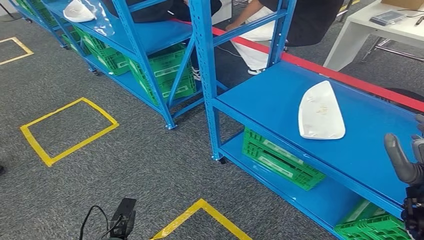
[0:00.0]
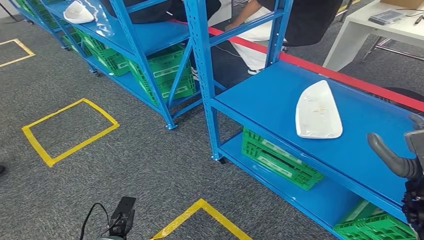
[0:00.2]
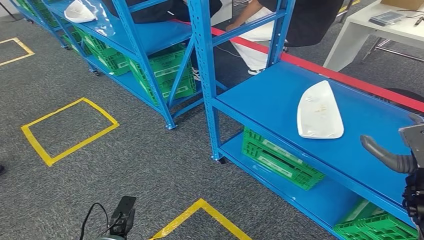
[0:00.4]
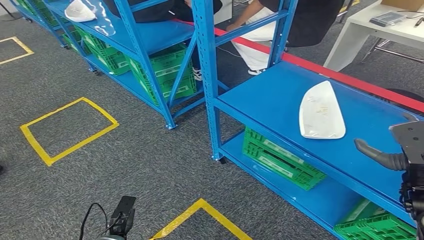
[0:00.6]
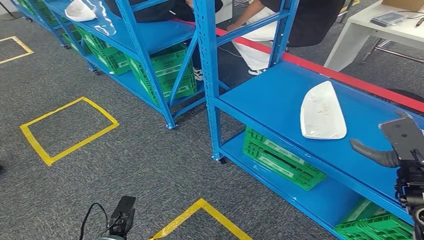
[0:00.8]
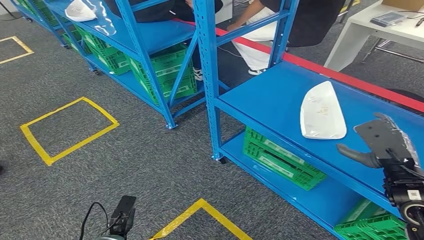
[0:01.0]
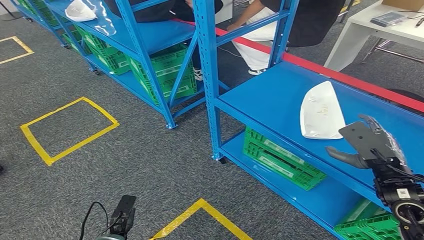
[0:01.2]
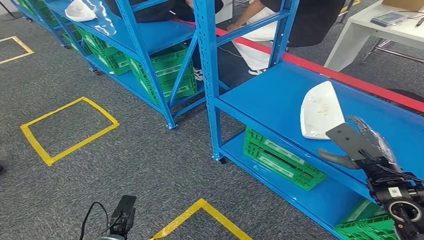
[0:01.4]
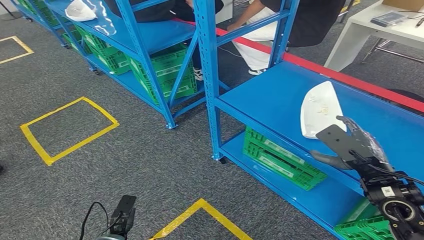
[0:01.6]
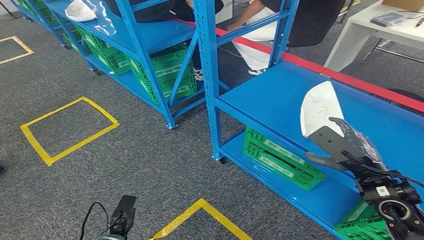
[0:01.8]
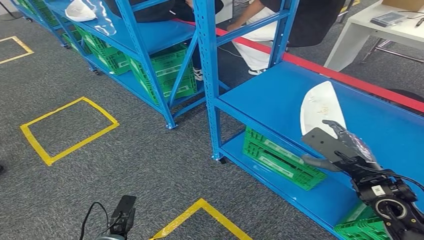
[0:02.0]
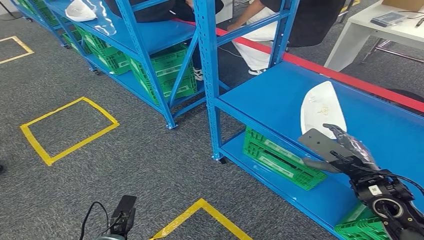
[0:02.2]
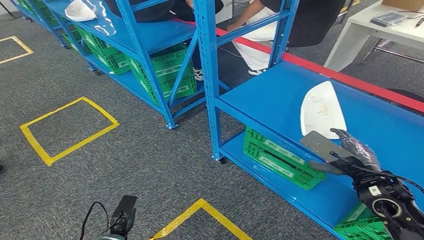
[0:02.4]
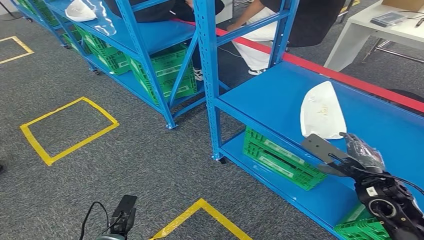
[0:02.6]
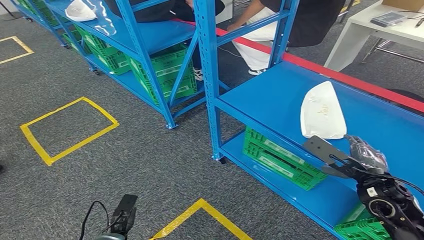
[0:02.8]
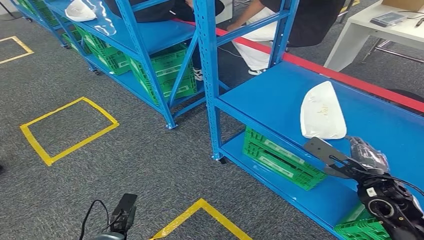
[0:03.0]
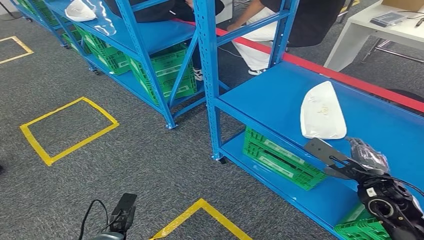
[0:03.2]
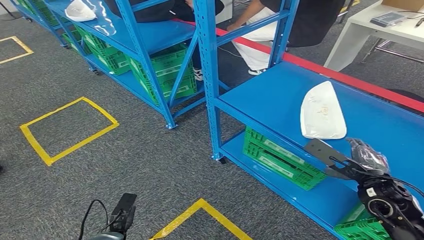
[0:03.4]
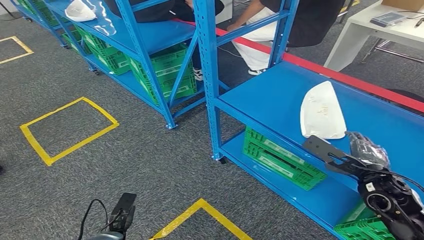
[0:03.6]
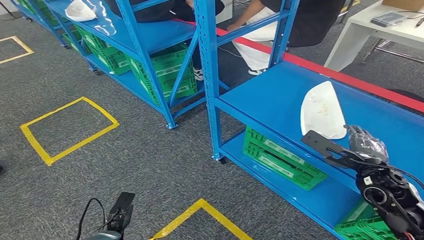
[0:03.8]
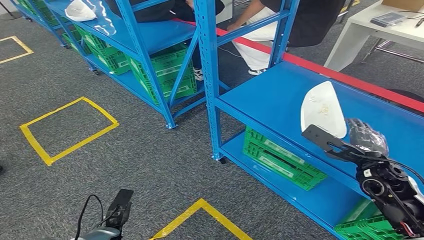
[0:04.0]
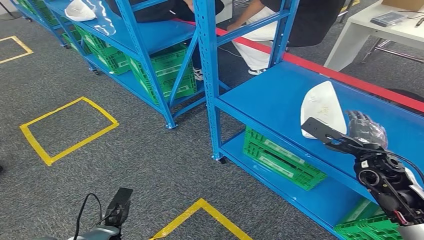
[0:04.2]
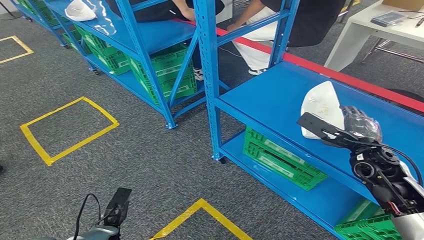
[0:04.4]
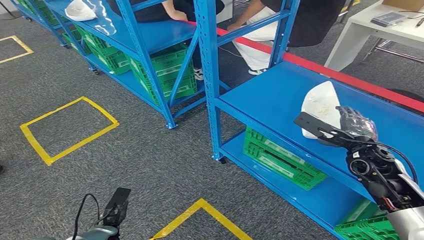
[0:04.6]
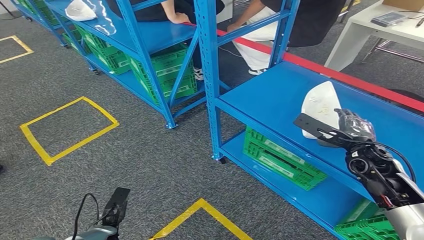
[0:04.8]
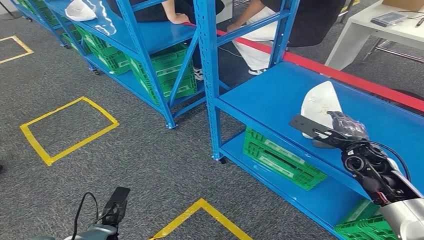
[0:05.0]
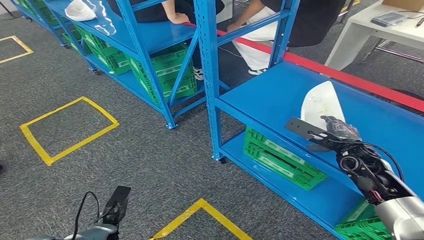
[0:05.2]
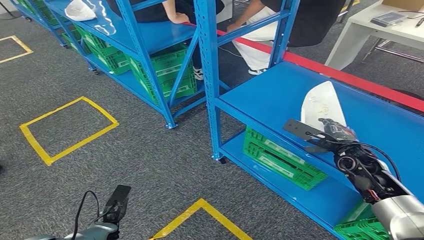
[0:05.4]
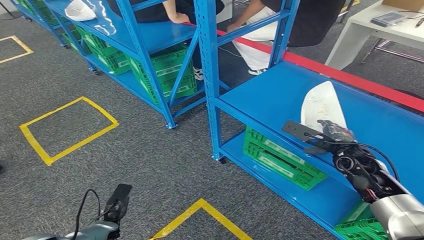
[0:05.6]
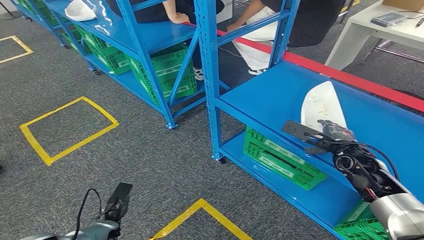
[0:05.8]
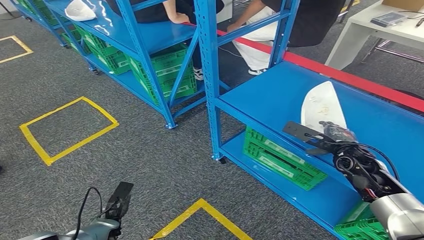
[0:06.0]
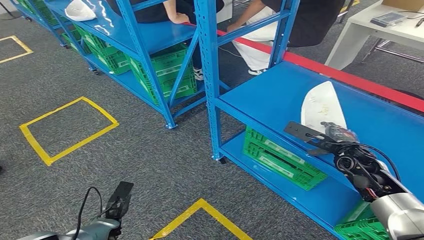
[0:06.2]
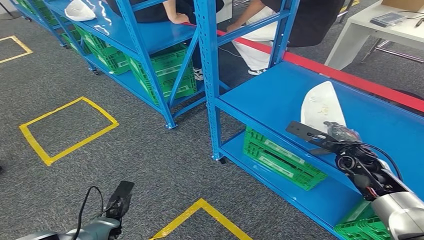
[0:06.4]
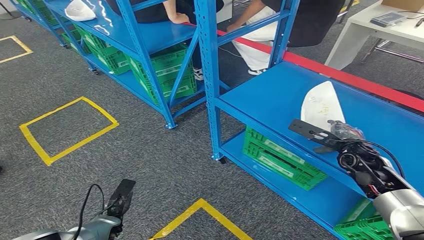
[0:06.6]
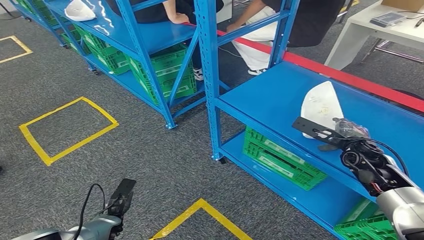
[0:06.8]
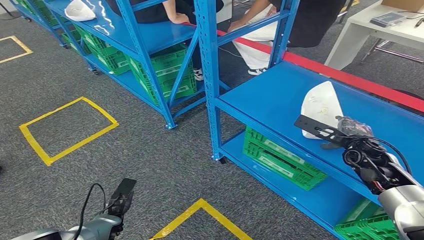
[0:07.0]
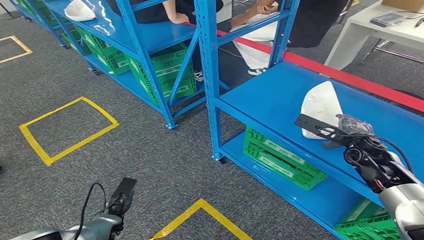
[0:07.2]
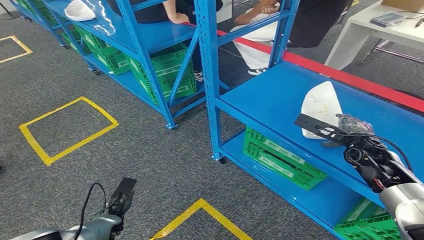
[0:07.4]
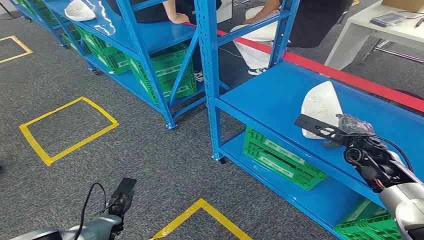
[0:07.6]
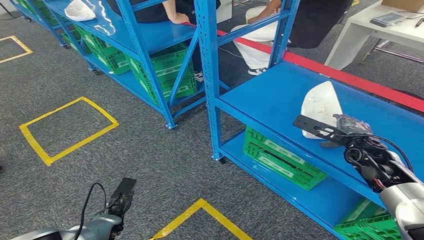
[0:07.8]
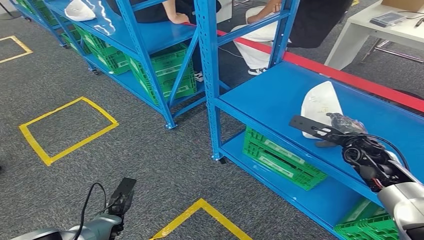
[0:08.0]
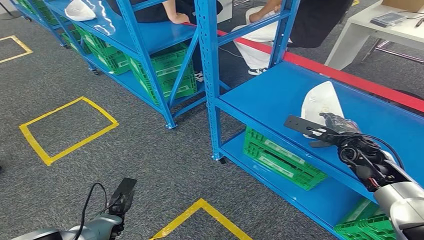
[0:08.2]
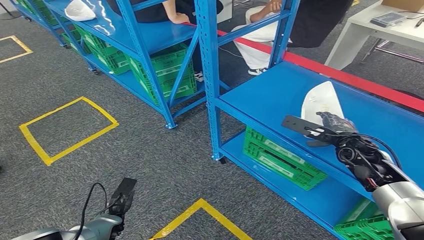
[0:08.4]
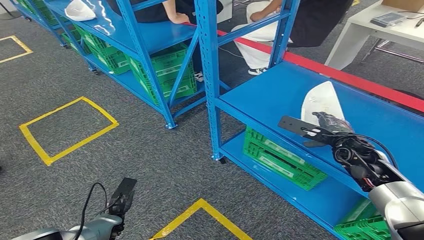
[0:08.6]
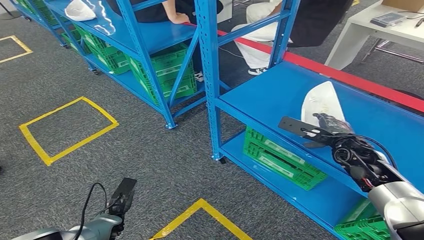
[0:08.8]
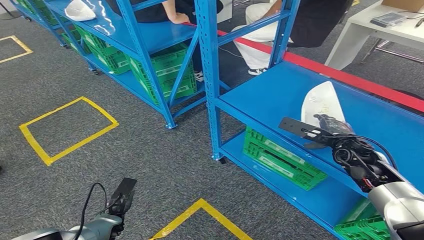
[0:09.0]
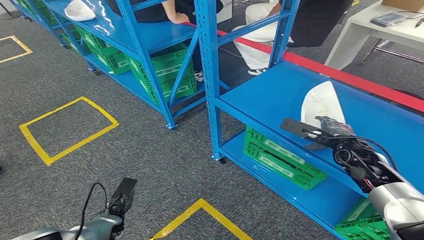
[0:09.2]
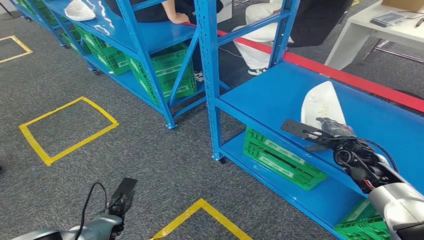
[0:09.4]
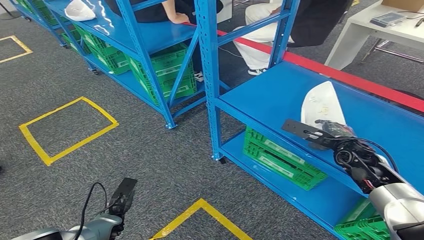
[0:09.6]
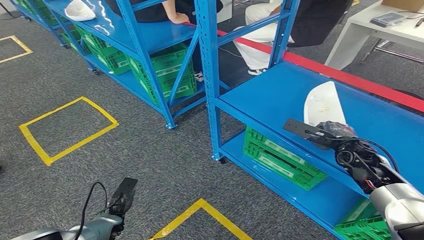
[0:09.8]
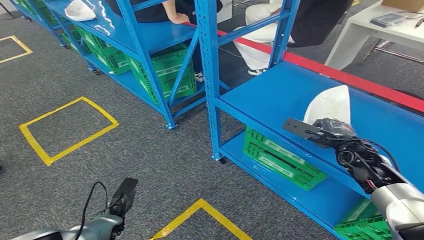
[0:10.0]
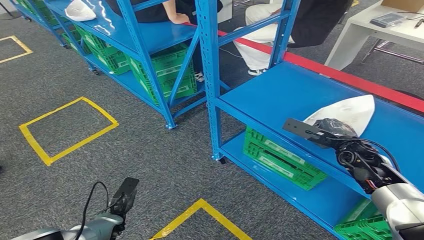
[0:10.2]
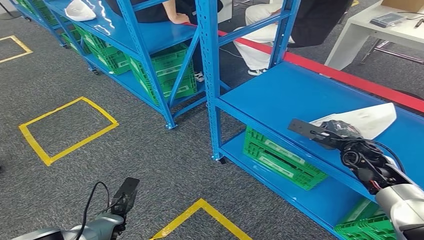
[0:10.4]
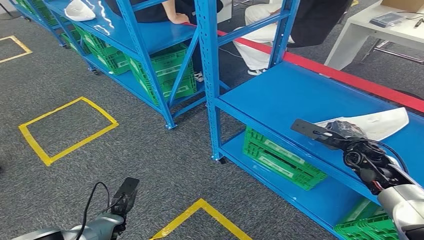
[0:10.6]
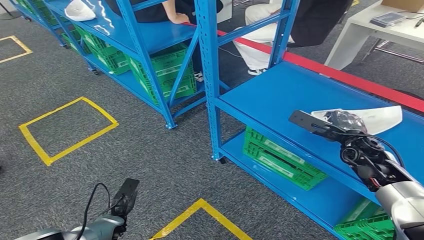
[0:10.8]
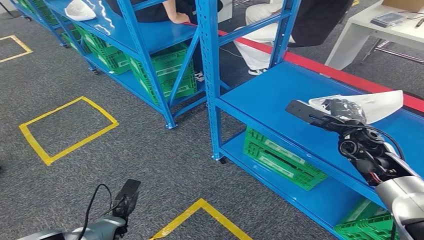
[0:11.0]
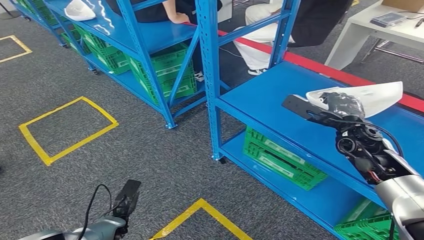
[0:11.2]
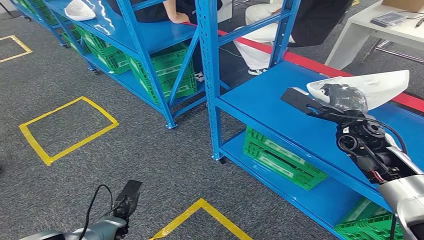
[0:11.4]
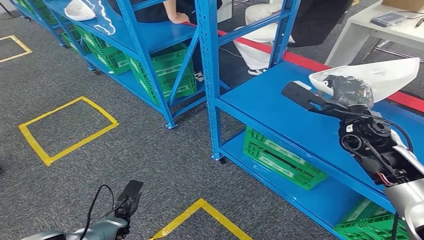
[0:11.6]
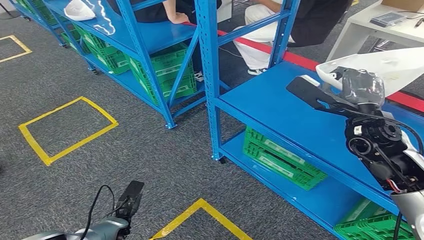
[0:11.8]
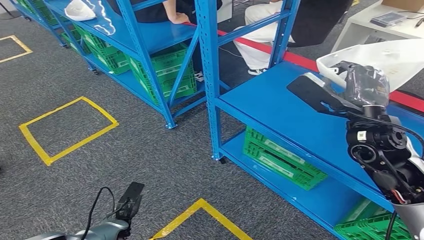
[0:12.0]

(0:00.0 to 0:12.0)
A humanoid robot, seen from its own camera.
0:00.0 - 0:01.6: The right hand shifts about 5 cm forward.
0:03.0 - 0:04.4: The right hand heads forward, covering about 10 cm.
0:04.4 - 0:10.4: The hands stay close to where they were, moving slightly.
0:10.4 - 0:12.0: The right hand moves upward and to the left, roughly 15 cm.

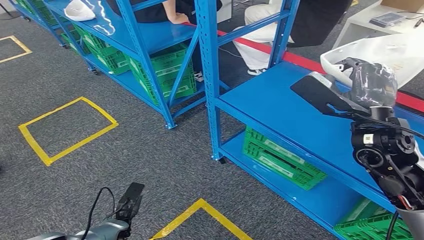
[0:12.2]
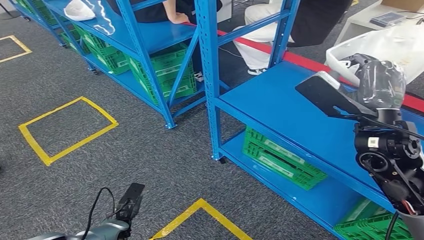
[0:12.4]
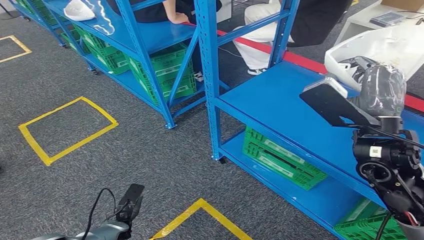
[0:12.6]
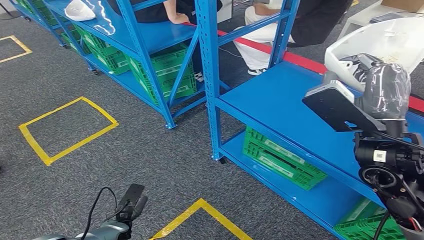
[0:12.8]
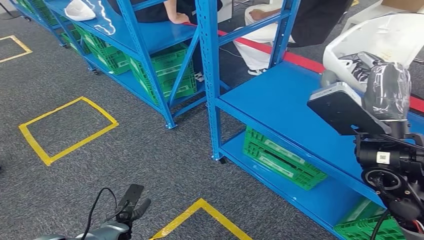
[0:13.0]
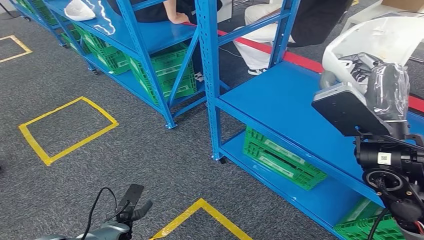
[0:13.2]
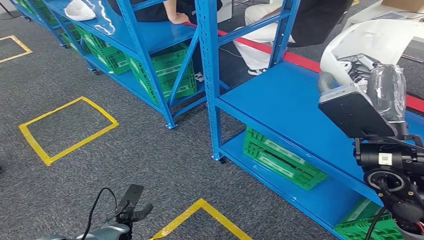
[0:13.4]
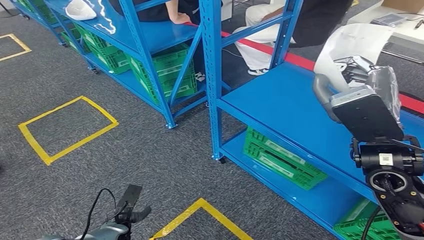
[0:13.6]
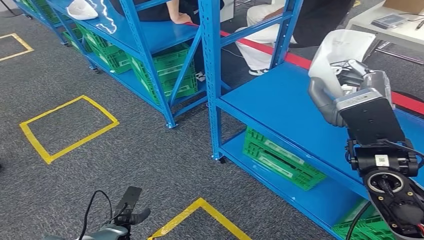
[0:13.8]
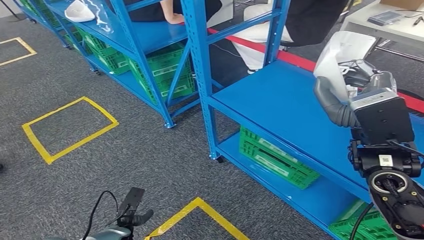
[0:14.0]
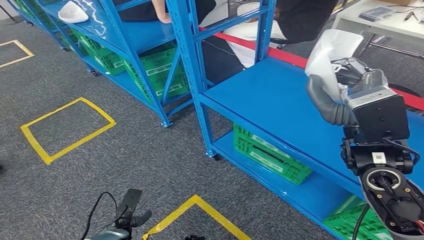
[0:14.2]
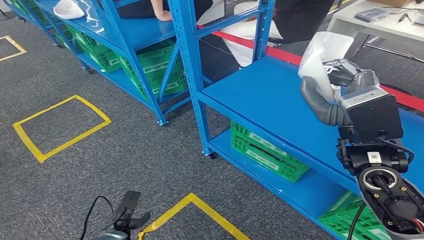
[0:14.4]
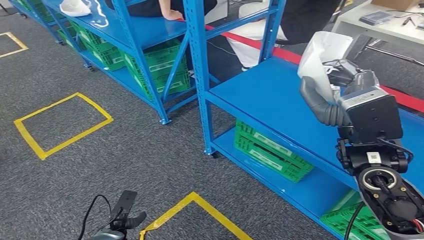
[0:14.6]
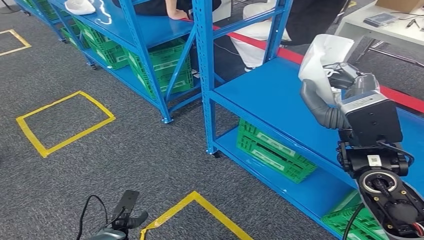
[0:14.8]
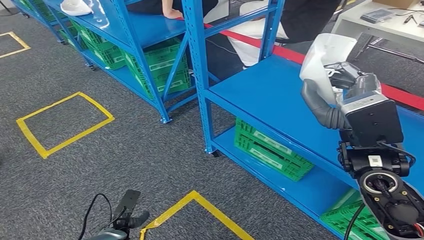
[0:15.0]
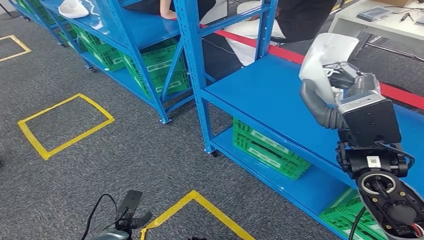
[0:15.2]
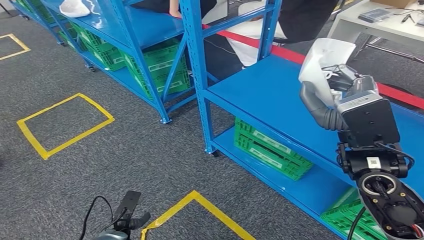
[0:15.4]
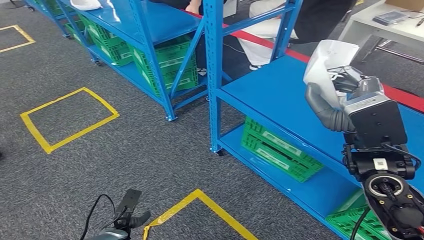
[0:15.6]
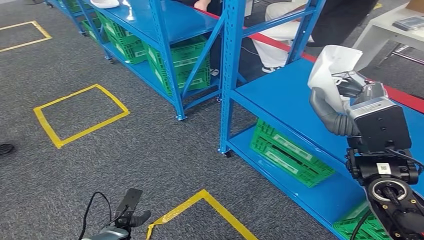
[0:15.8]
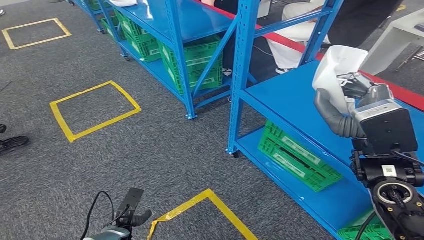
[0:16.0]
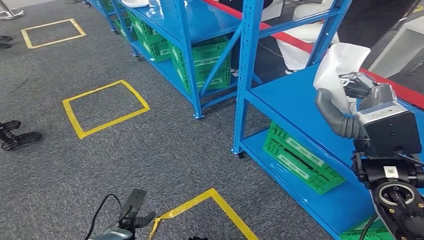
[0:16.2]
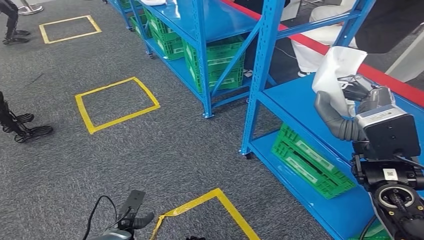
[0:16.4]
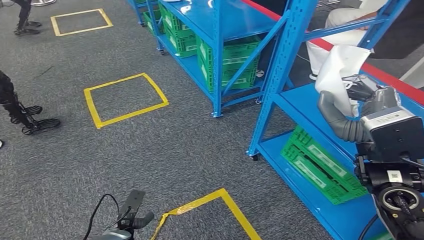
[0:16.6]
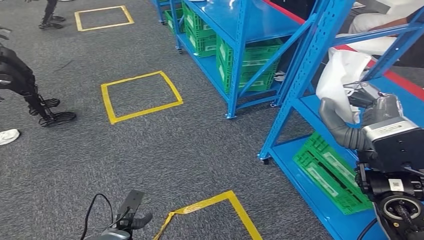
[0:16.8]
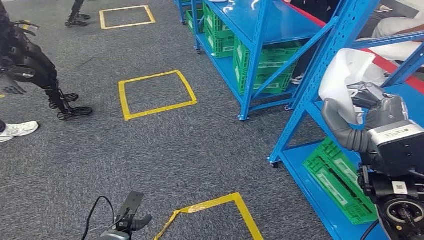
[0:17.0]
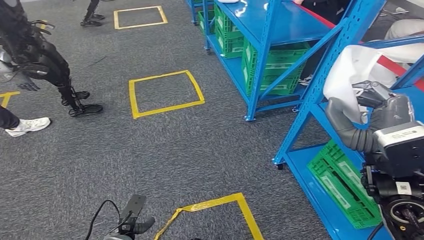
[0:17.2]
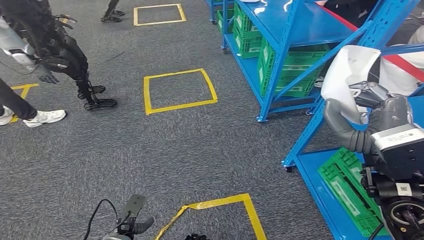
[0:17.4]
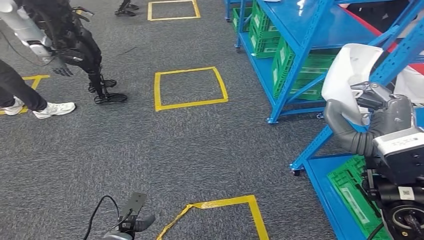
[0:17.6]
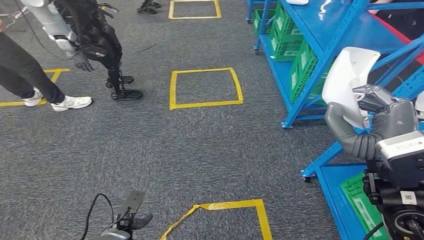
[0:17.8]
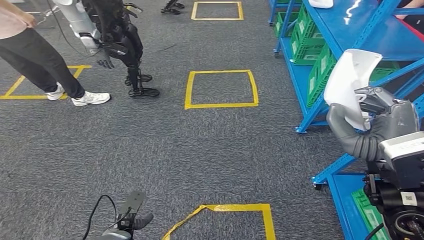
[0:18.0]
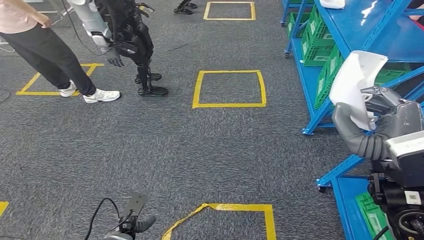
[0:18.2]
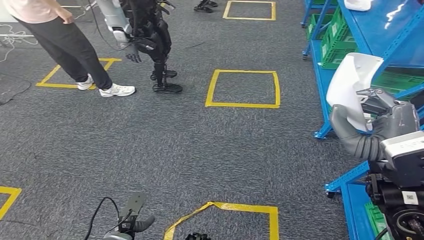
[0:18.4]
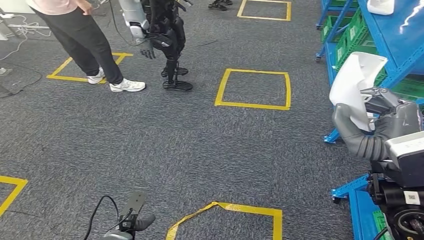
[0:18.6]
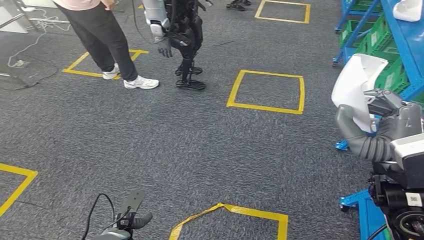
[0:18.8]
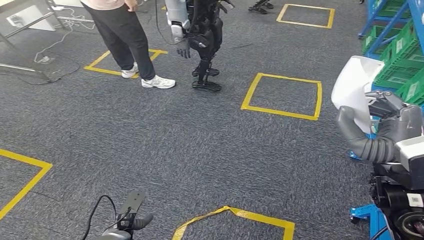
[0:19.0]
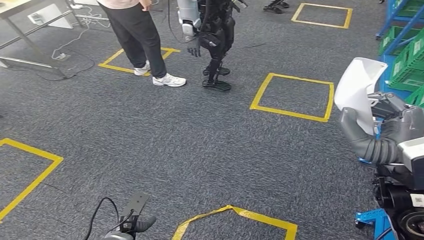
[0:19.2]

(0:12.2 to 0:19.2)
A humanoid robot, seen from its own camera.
0:12.2 - 0:13.6: The right hand goes roughly 5 cm backward.
